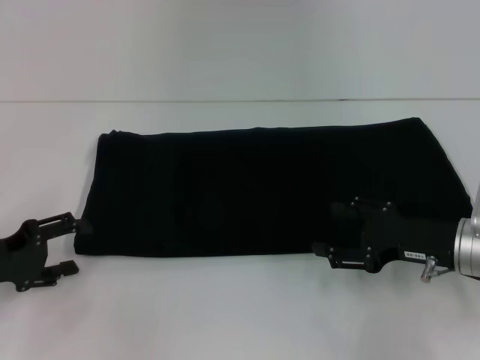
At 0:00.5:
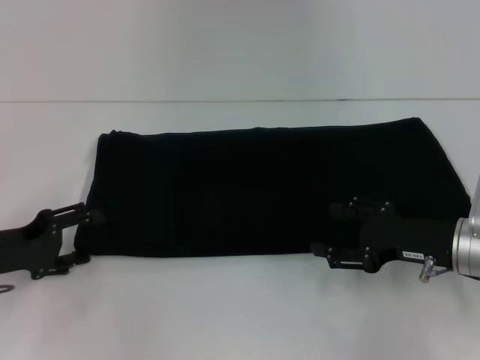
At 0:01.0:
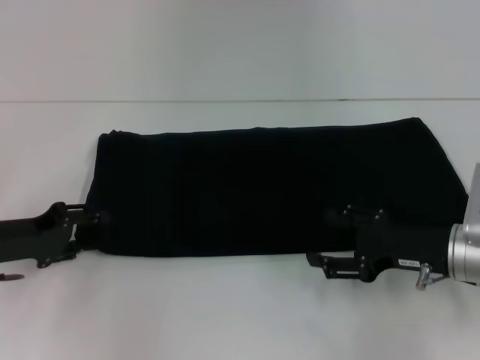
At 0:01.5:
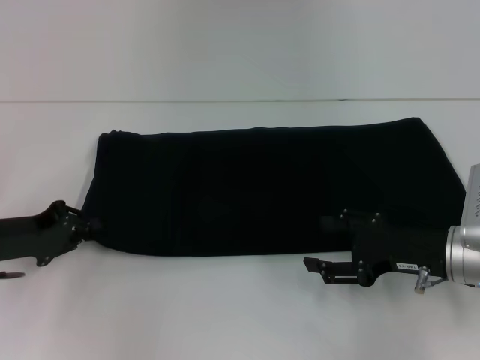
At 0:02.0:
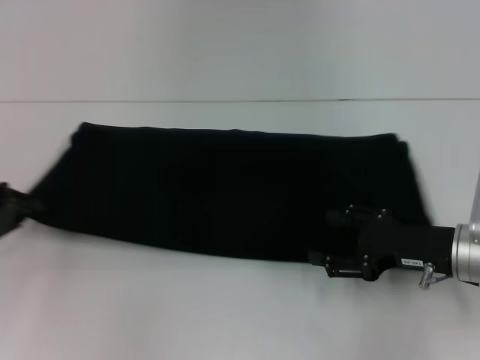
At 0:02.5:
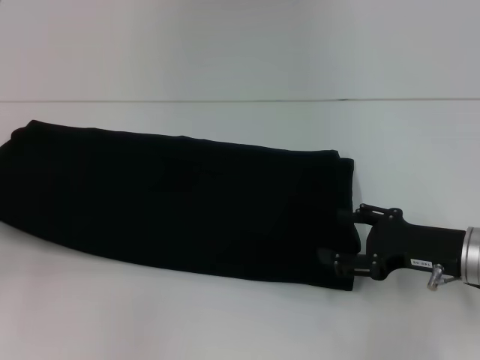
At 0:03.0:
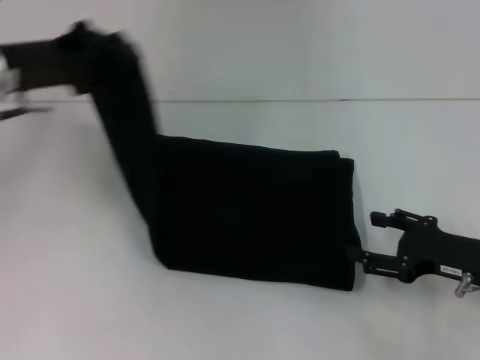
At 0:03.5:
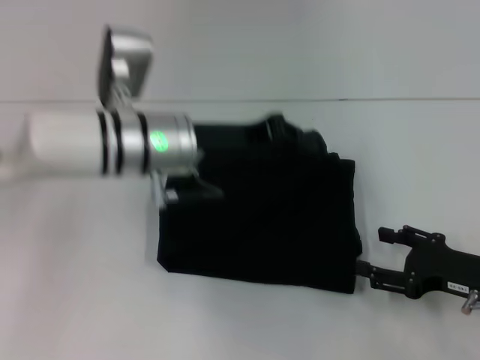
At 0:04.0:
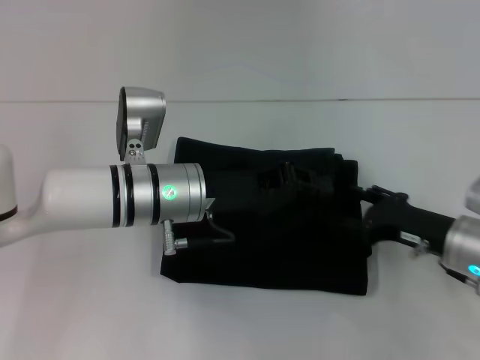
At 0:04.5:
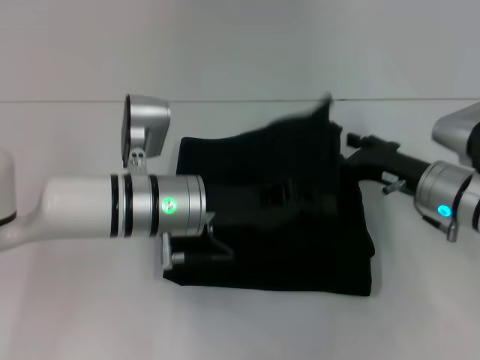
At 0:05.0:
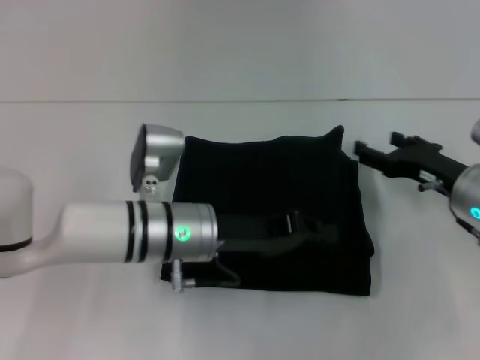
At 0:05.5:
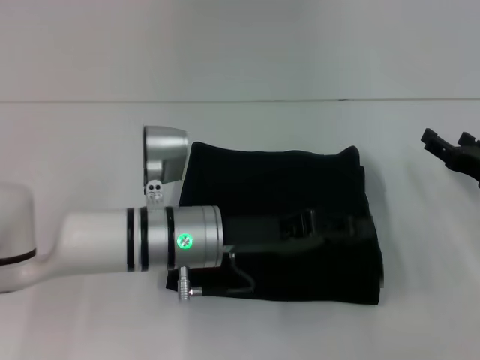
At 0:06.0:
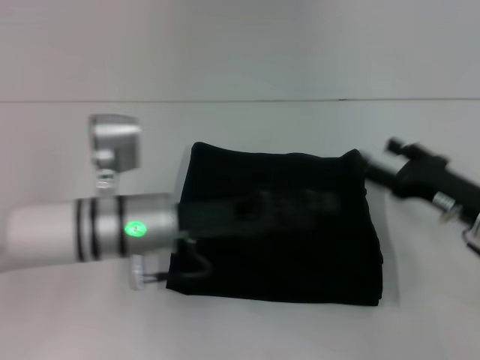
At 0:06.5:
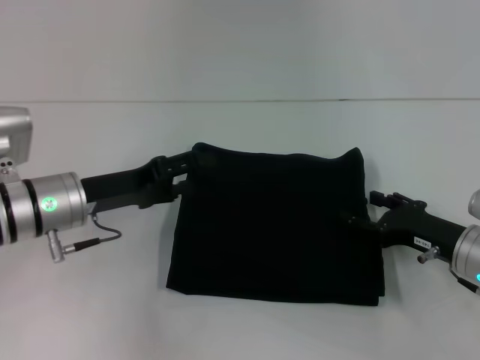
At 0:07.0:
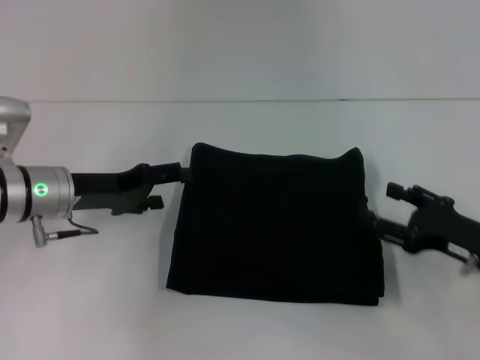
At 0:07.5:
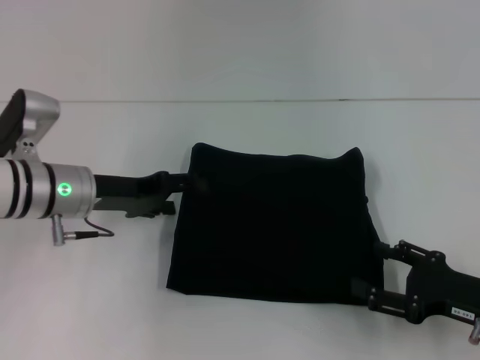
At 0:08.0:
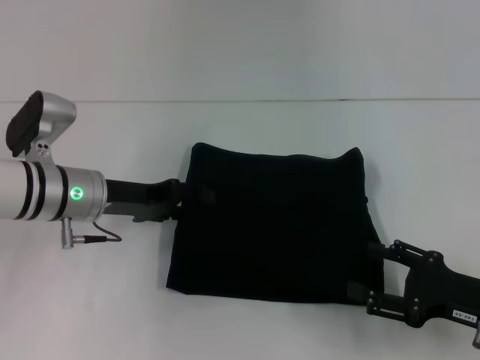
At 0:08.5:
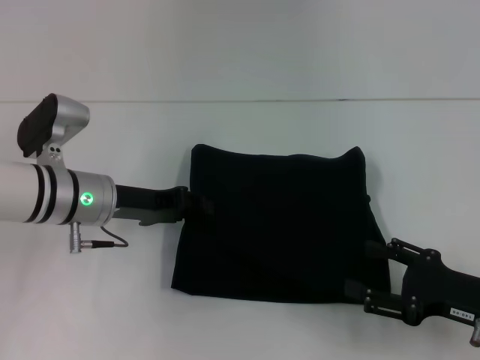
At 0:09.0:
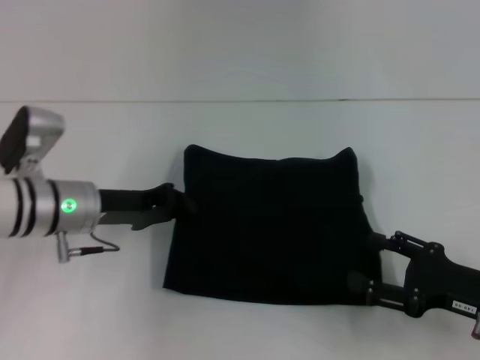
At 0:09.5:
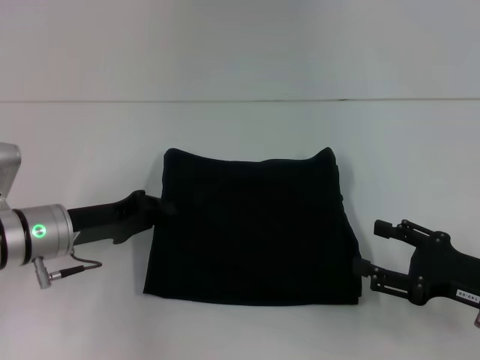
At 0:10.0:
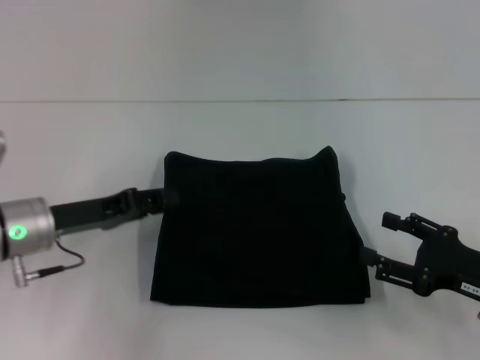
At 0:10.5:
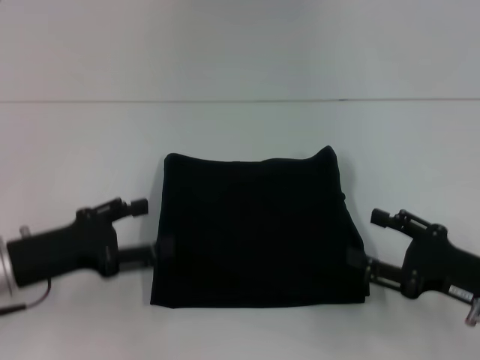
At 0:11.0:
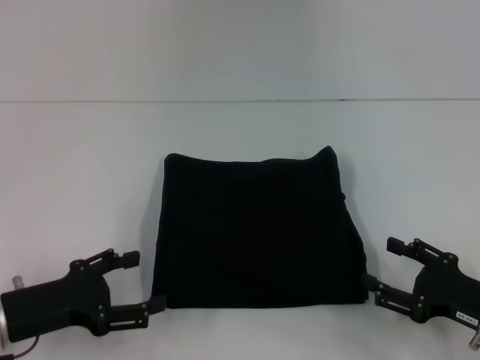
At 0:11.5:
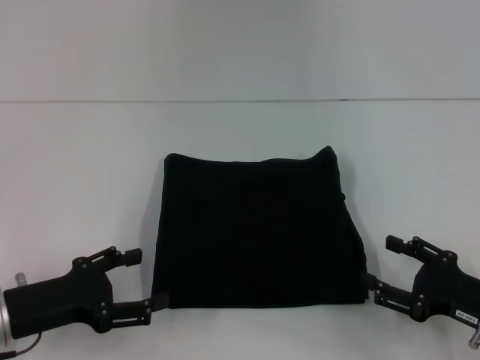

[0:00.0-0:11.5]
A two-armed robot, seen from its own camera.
Step, 0:00.0 to 0:05.5: Fold the clothes with your left hand.
0:00.0 to 0:02.0: The left gripper closes its fingers.
0:02.0 to 0:04.0: The left gripper heads to the right, covering roughly 25 cm.
0:04.0 to 0:06.0: The left gripper opens its fingers. The right gripper moves roughly 5 cm to the right and comes back.
0:06.0 to 0:07.5: The left gripper is displaced to the left by about 10 cm. The right gripper moves backward, approximately 10 cm.
0:07.5 to 0:09.5: The left gripper ends up roughly 5 cm from where it was, and closes.
0:09.5 to 0:11.5: The left gripper is displaced backward by some 10 cm, and opens its fingers.

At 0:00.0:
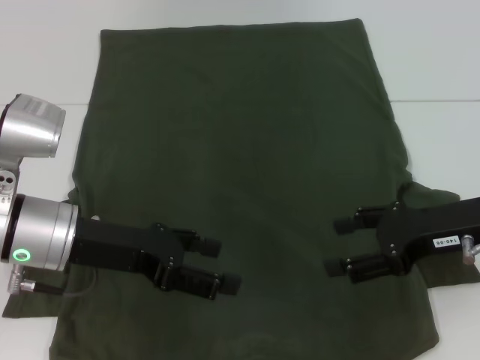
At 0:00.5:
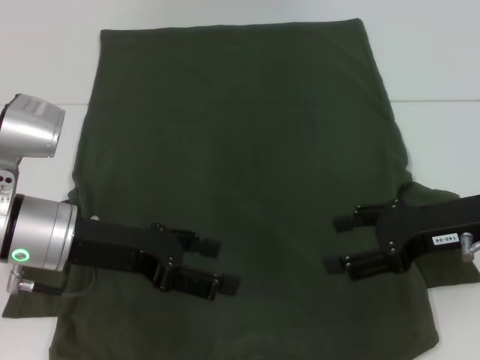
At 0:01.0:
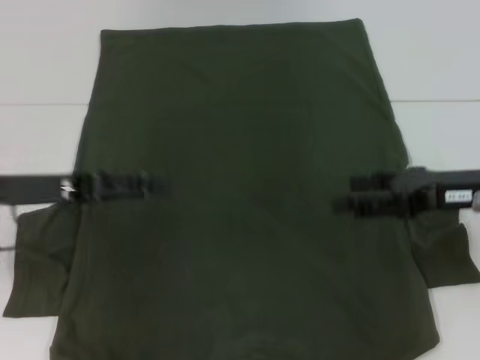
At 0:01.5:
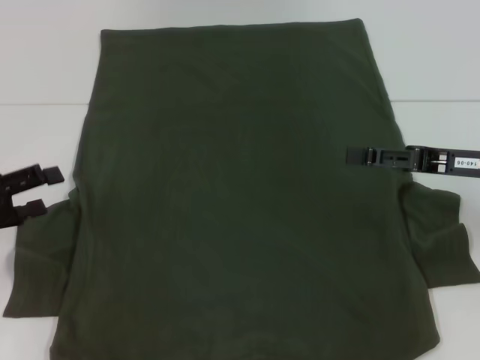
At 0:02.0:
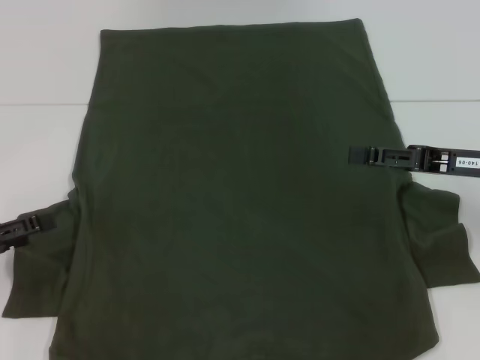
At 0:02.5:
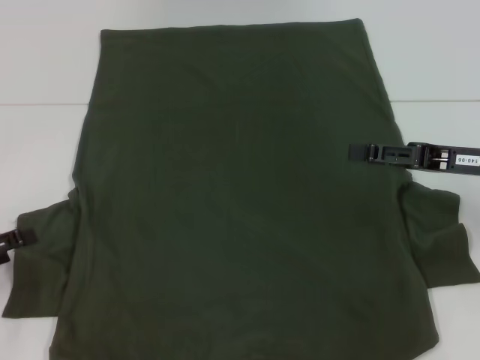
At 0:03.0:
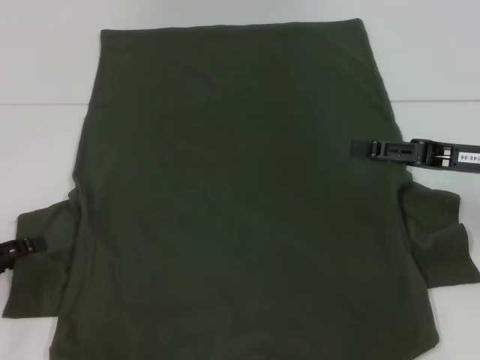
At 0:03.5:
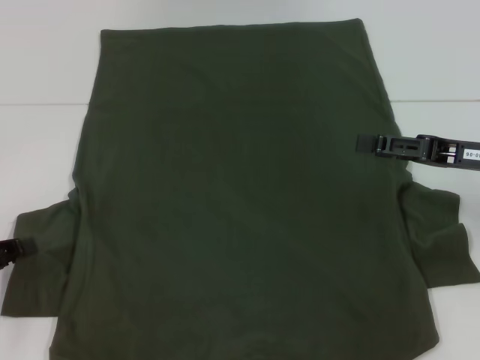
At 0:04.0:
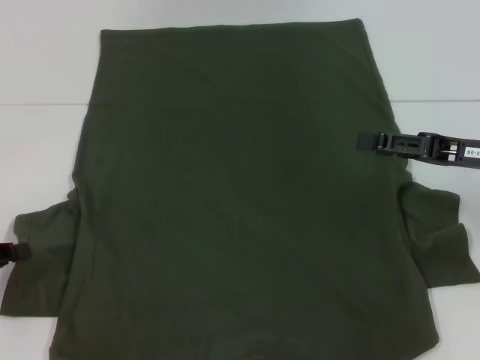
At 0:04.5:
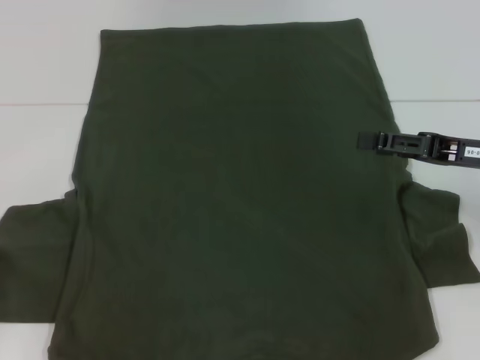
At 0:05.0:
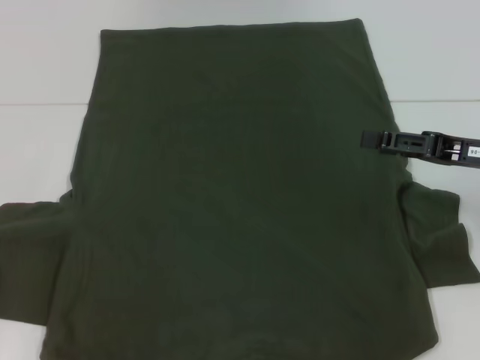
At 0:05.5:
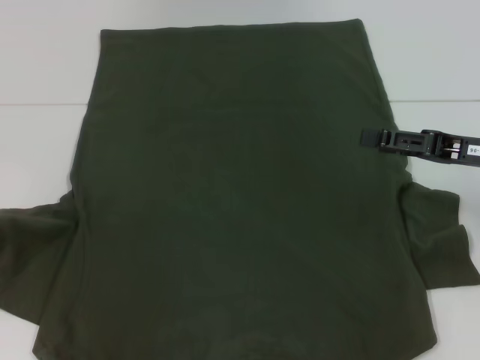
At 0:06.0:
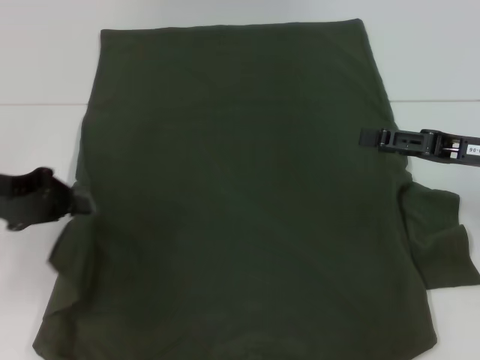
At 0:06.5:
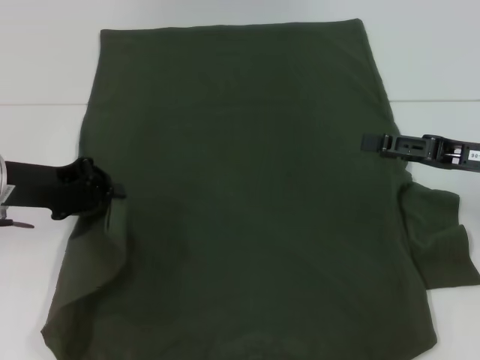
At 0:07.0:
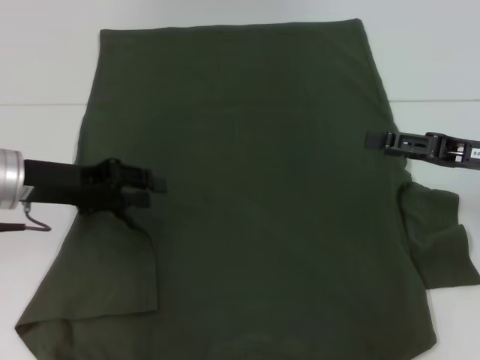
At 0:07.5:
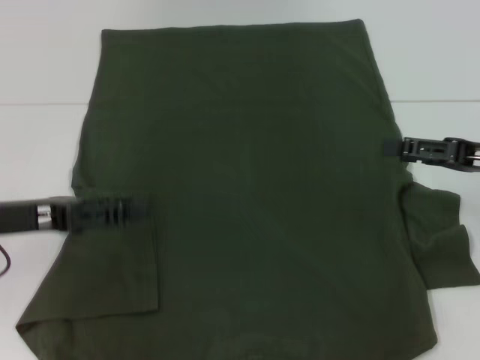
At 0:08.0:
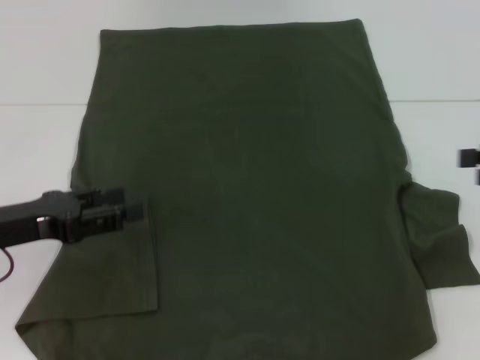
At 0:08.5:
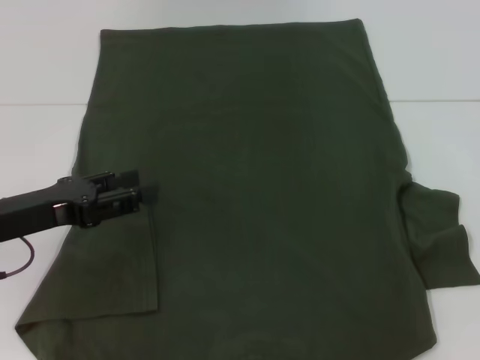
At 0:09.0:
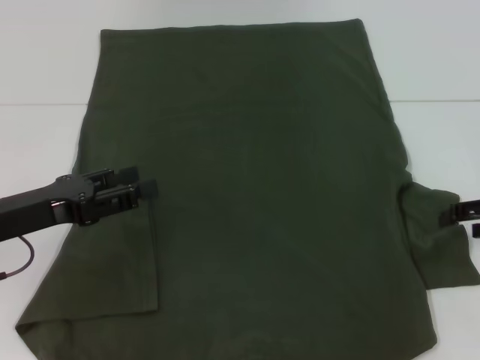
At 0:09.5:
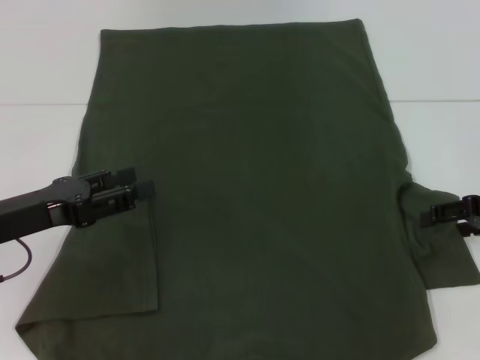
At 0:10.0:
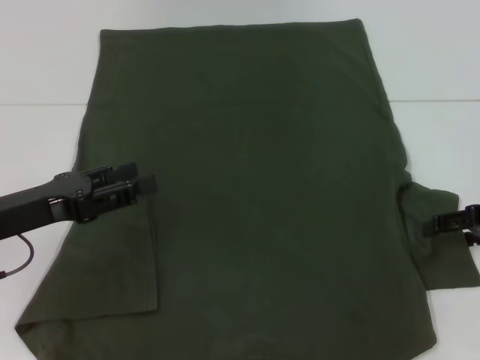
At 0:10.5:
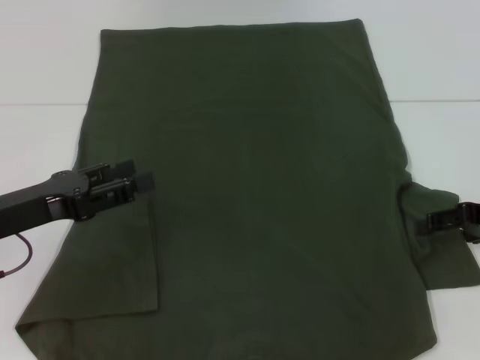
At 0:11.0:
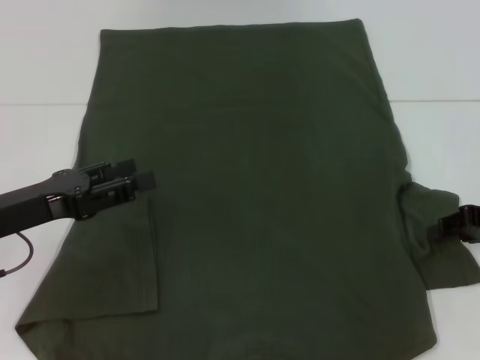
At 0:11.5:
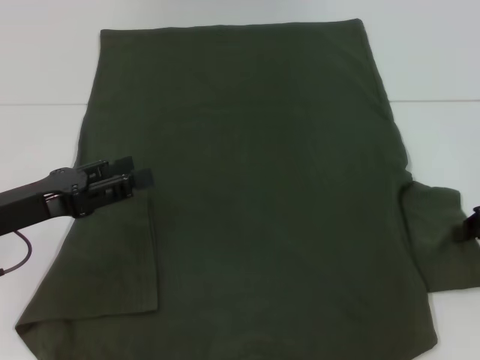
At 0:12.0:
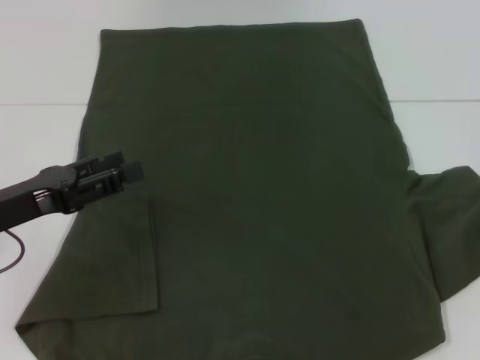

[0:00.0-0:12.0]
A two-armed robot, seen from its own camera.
Step, 0:00.0 to 0:07.0: Fold the bottom left sleeve with your left hand.
0:00.0 to 0:02.0: The left gripper is displaced to the left by some 15 cm.
0:02.0 to 0:04.0: The left gripper closes up.
0:04.0 to 0:06.0: The left gripper shifts some 15 cm upward, forward and to the right.
0:06.0 to 0:08.0: The right gripper travels to the right by approximately 10 cm. The left gripper shifts by about 5 cm, and opens its fingers.
0:08.0 to 0:10.0: The right gripper goes some 5 cm downward.
0:10.0 to 0:12.0: The right gripper closes.

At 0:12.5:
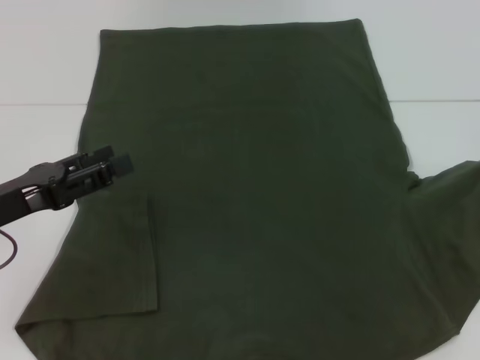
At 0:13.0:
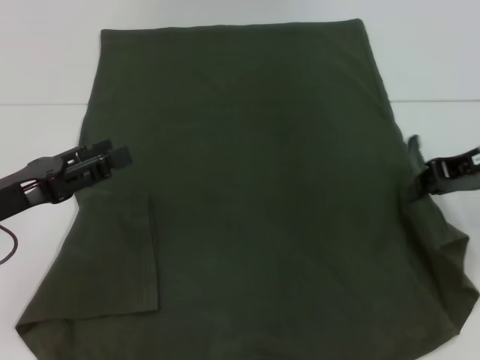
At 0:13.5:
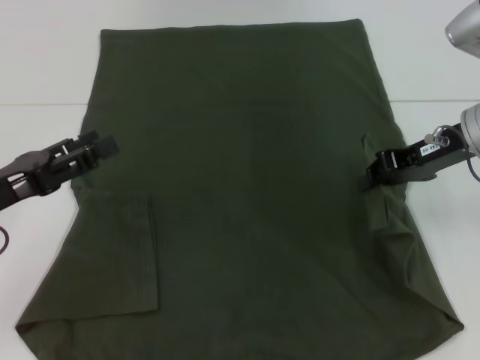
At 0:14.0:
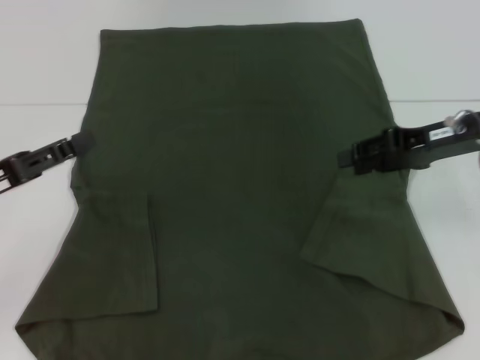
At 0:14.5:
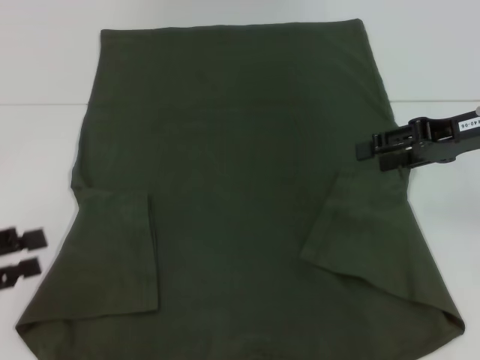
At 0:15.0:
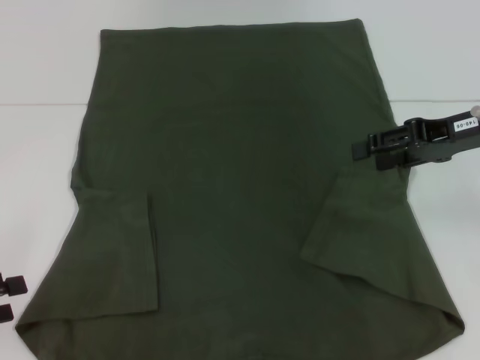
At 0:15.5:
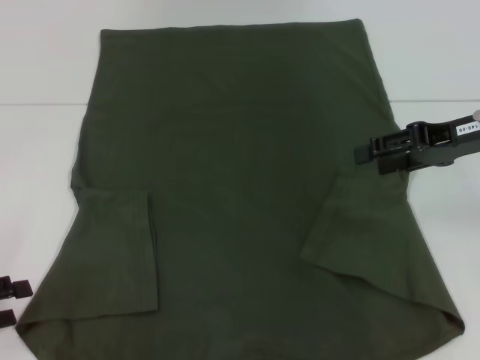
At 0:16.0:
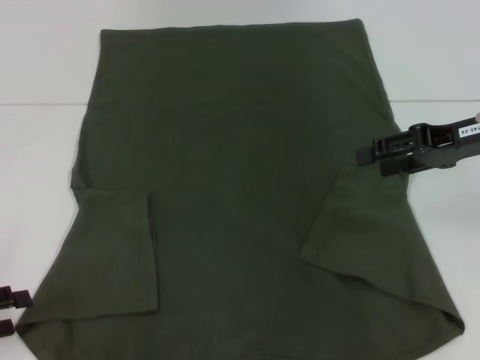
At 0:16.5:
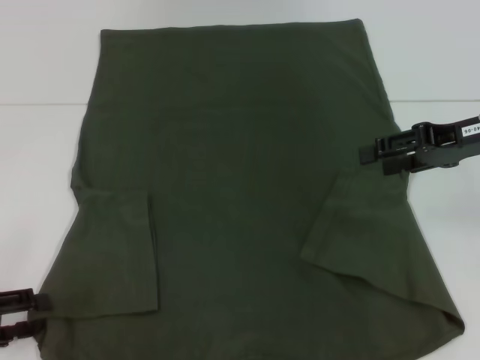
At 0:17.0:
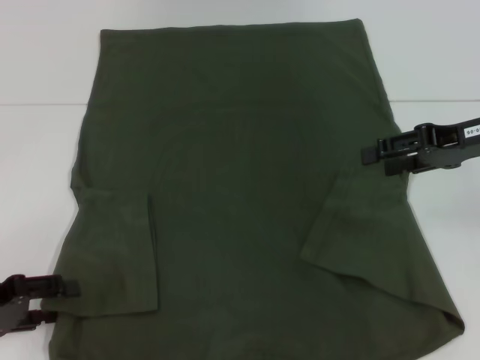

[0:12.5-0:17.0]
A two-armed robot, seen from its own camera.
0:12.5 to 0:14.5: The right gripper goes some 10 cm to the left, and opens up, while the left gripper shifts approximately 10 cm to the left and backward.
0:14.5 to 0:17.0: The left gripper changes place by roughly 5 cm.
